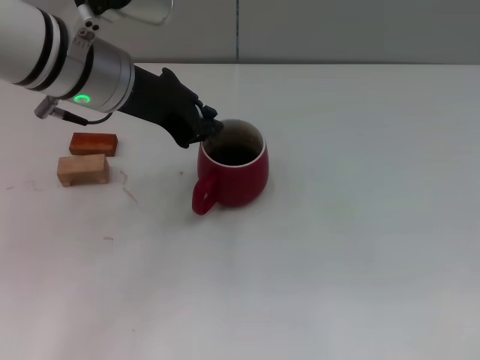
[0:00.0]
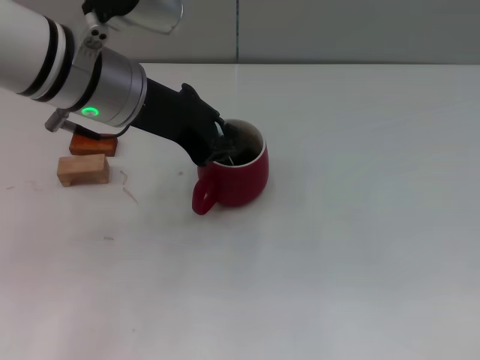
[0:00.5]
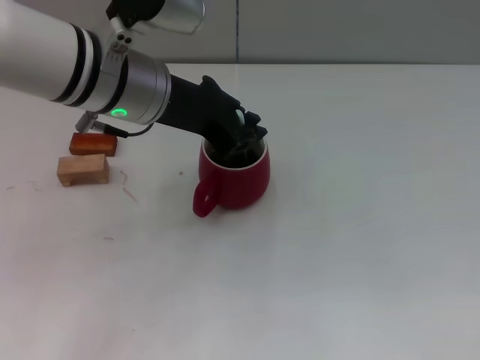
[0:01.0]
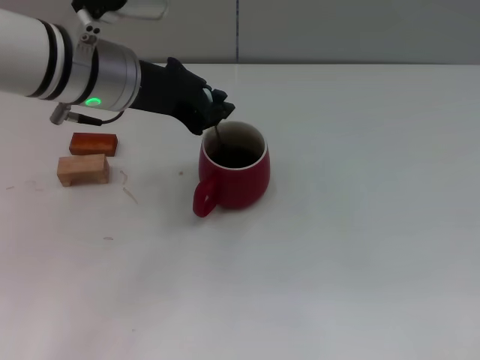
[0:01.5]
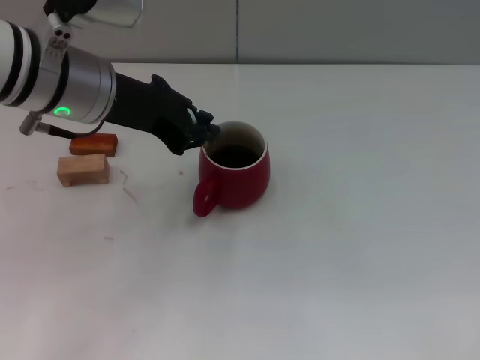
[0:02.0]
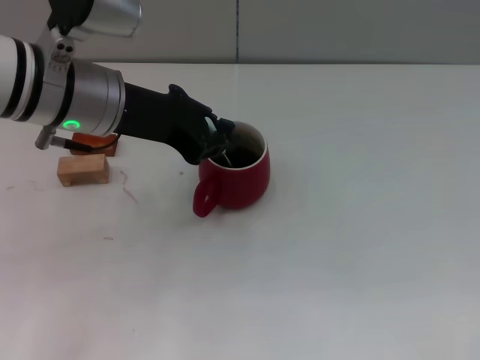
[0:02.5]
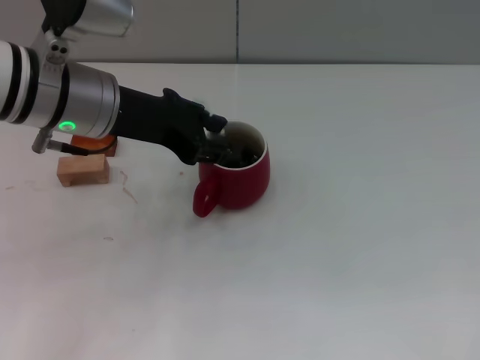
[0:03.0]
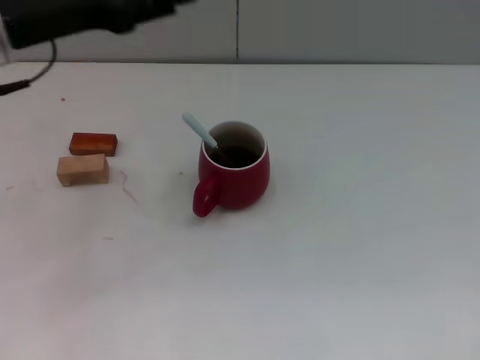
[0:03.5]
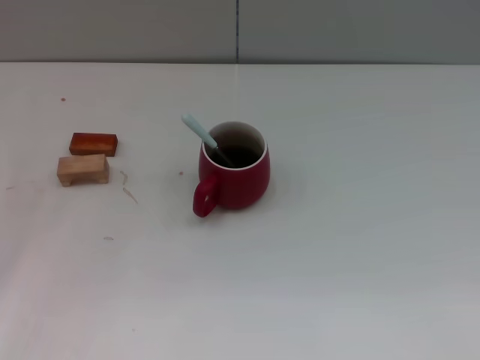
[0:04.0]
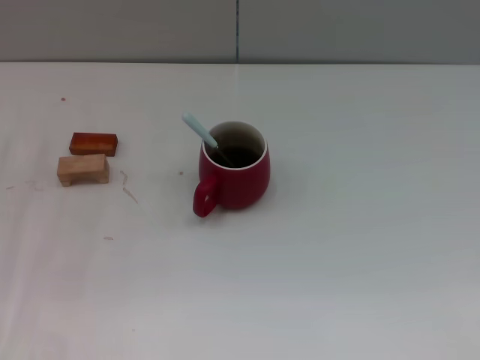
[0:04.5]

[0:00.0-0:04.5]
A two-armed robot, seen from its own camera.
Task of the whole recording: Move the red cup to the center, lift the blue spoon, stir it three times in the cup, and put the spoon into the cup.
Step, 0:00.0 to 0:03.0: Stir the coffee in the cup with the left gripper.
0:00.0 to 0:02.0: The grippers move only a little.
0:02.0 to 0:04.5: The left gripper travels to the left and downward by some 20 cm, and opens up. Meanwhile the right gripper shifts by about 5 cm.

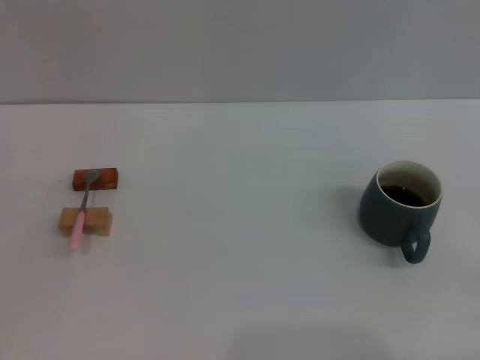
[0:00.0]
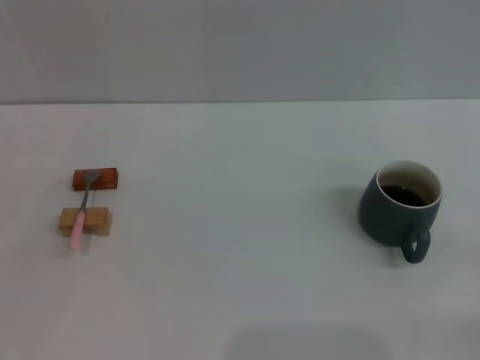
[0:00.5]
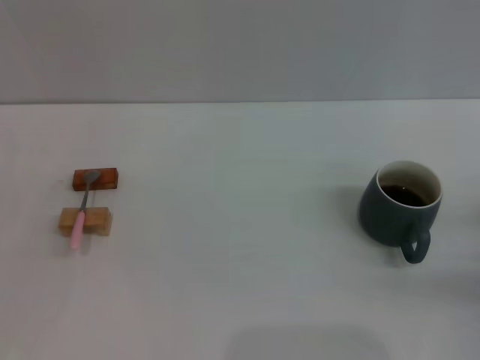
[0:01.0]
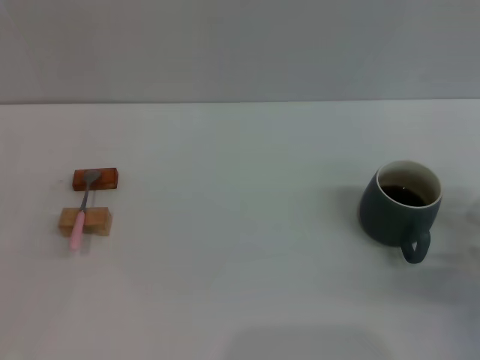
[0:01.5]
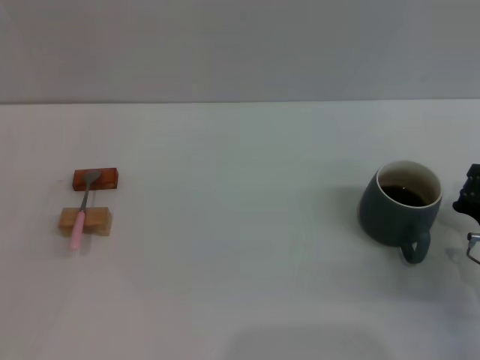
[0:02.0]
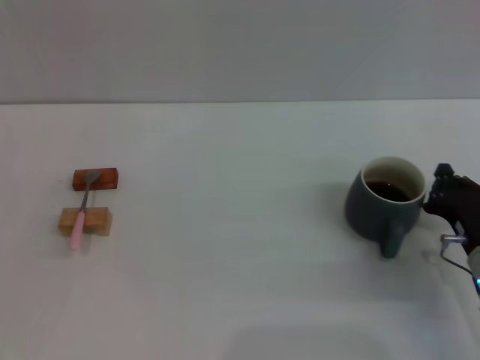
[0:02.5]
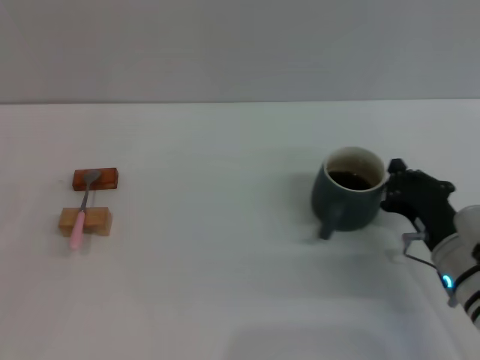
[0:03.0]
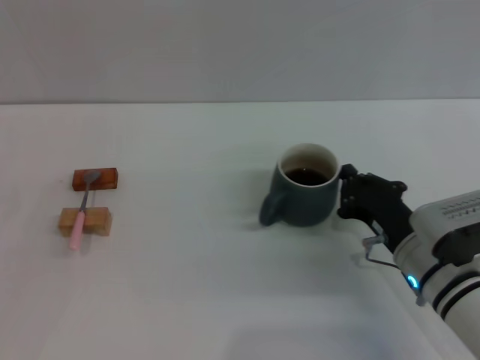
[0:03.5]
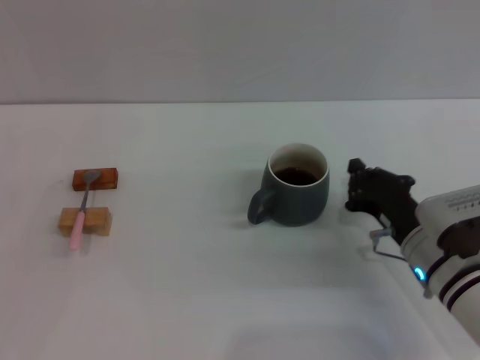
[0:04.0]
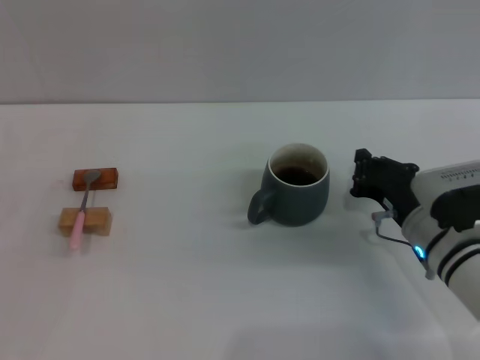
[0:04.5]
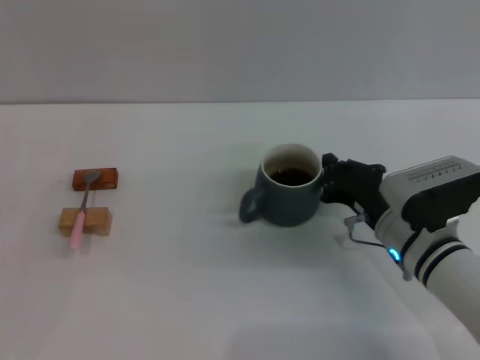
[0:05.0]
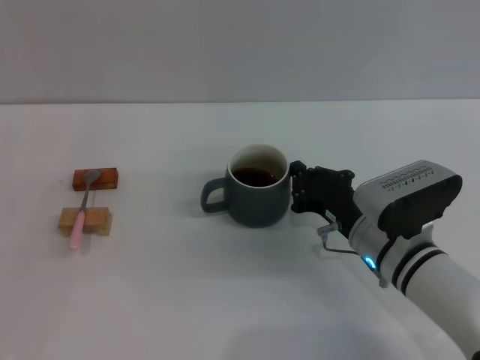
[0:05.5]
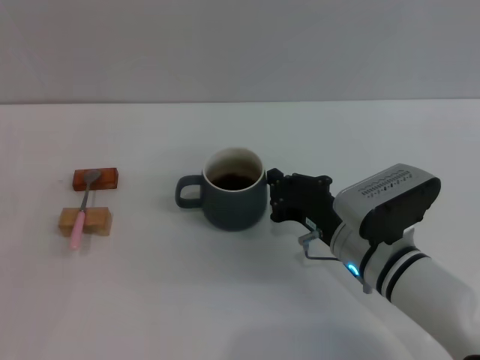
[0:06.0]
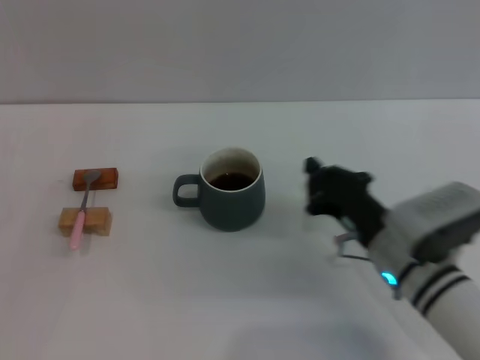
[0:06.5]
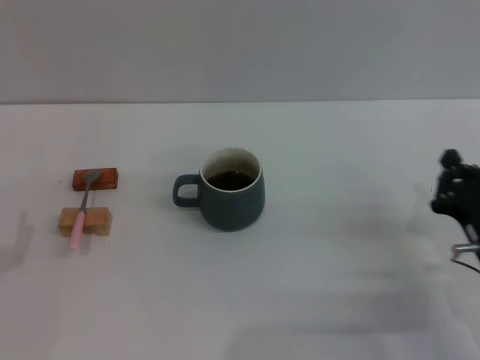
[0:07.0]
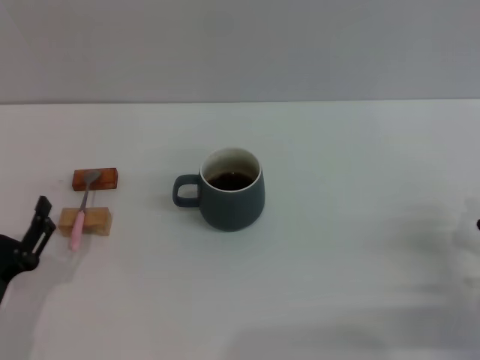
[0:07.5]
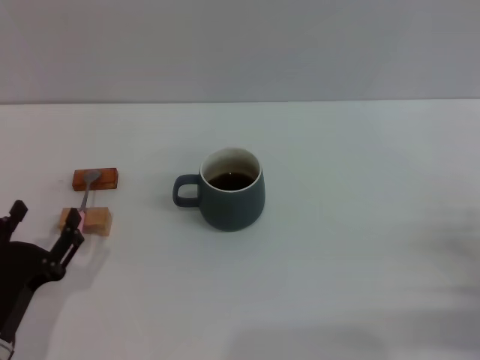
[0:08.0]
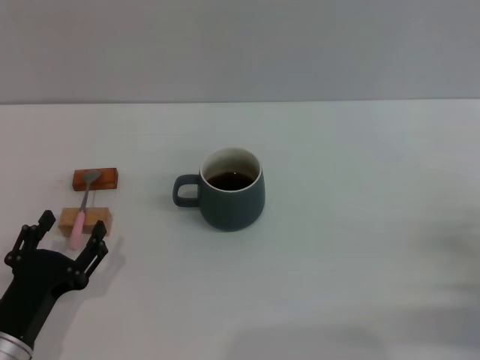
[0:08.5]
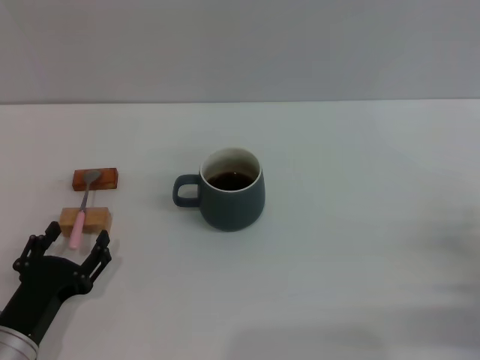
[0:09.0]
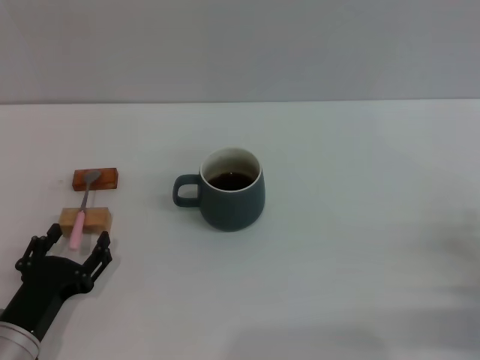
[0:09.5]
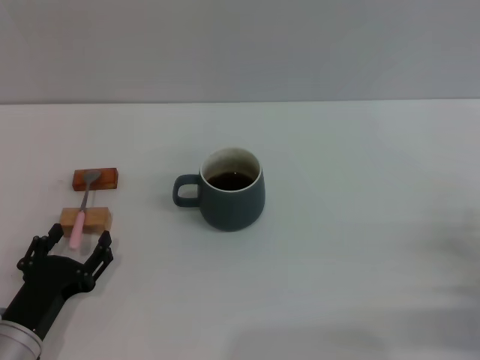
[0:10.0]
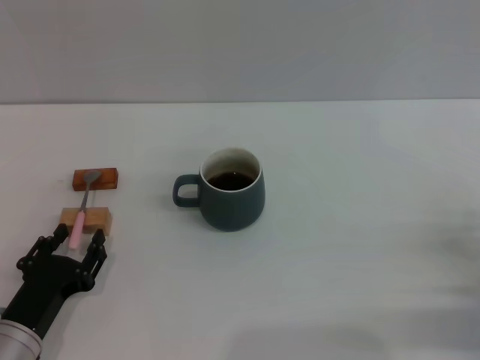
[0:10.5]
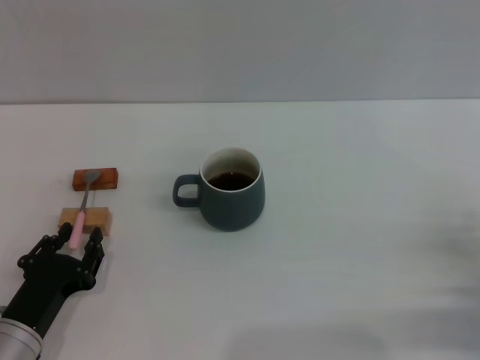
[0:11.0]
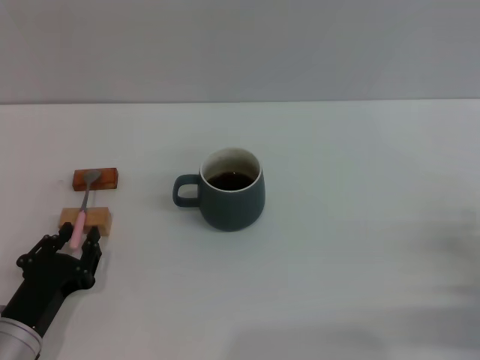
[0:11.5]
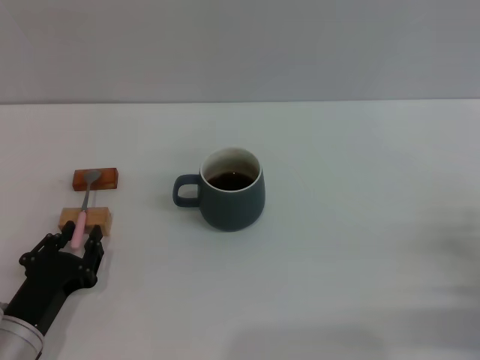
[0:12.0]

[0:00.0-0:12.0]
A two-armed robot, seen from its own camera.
Task of the whole recording: Move the grey cup to the center, lift the pink spoon, stir it three times in the cup, and put the spoon into the cup.
Step, 0:00.0 to 0:06.0: Move the cup with coffee to the center of view with the right gripper.
0:00.0 to 0:02.0: The right gripper is displaced forward and to the left by about 15 cm.
0:02.0 to 0:04.0: The right gripper goes some 10 cm to the left.
0:04.0 to 0:06.0: The right gripper is displaced to the left by roughly 5 cm.
0:06.0 to 0:08.0: The right gripper moves to the right and backward, approximately 20 cm. The left gripper shifts some 10 cm to the right and backward.
0:08.0 to 0:10.0: There are only small adjustments of the grippers.
0:10.0 to 0:12.0: The left gripper closes.

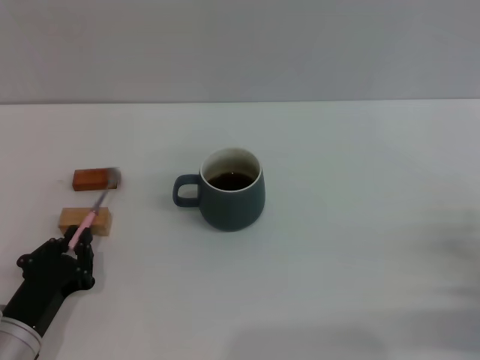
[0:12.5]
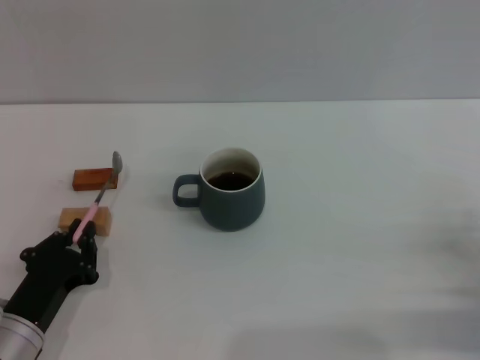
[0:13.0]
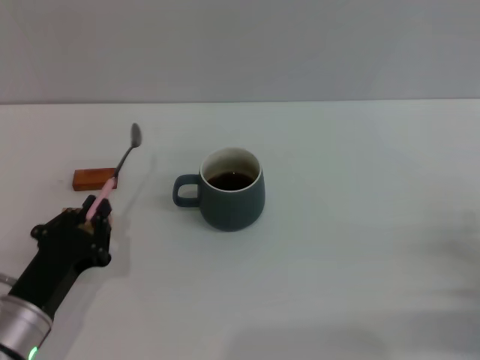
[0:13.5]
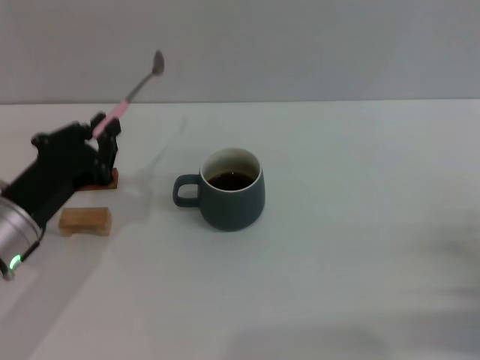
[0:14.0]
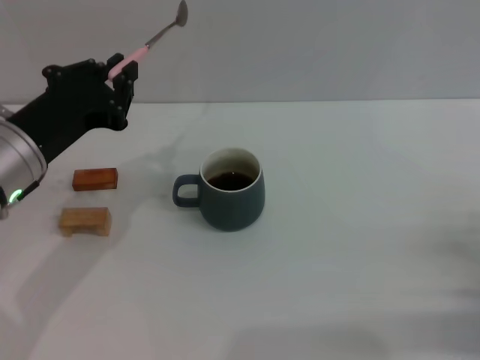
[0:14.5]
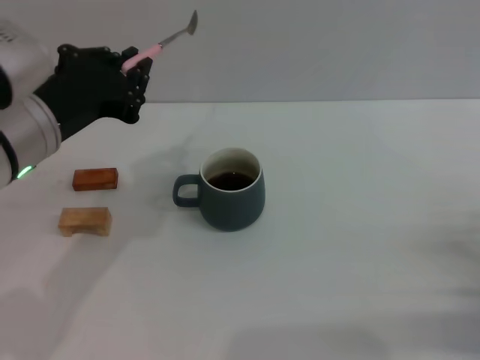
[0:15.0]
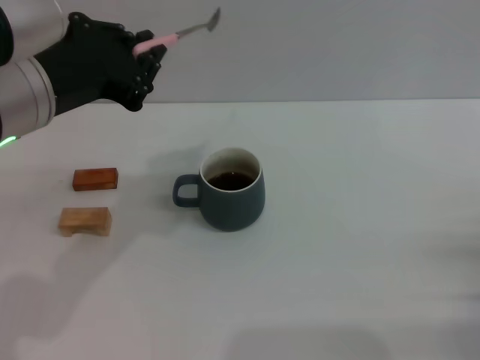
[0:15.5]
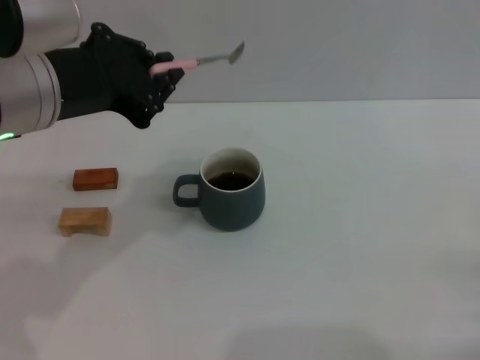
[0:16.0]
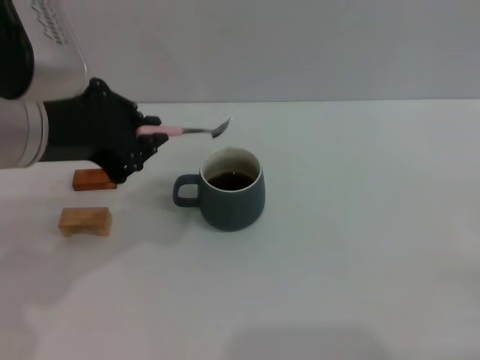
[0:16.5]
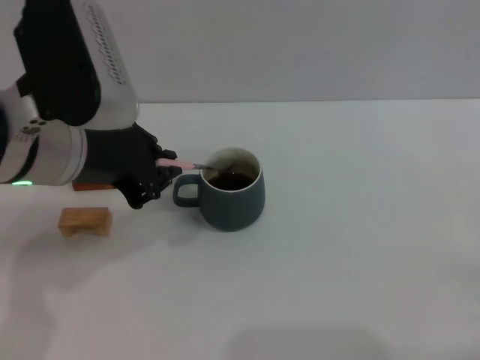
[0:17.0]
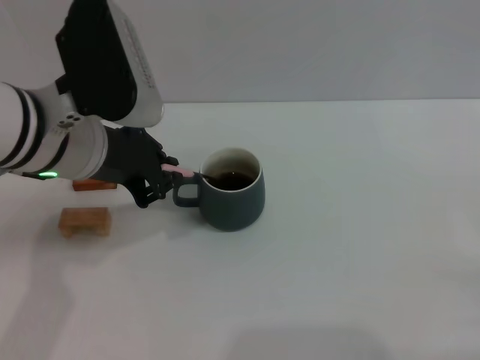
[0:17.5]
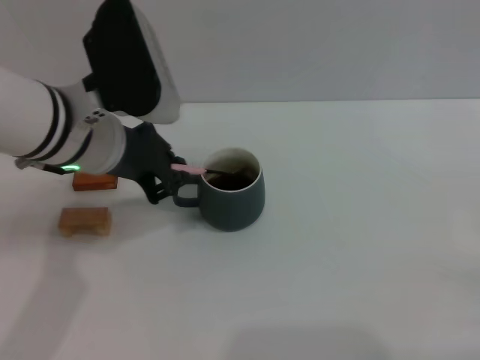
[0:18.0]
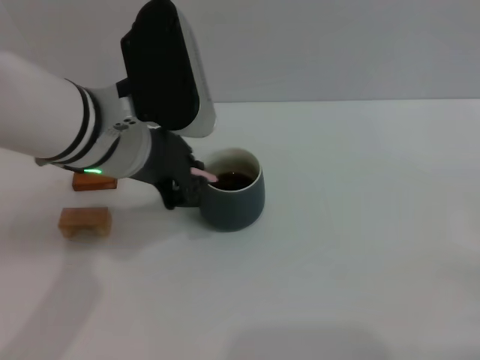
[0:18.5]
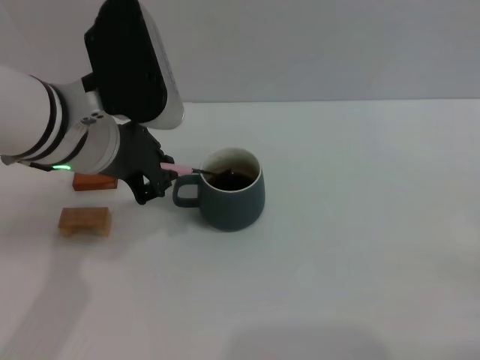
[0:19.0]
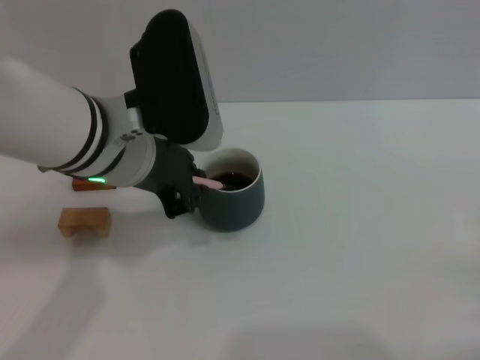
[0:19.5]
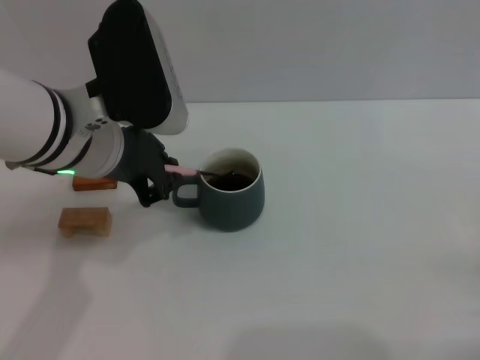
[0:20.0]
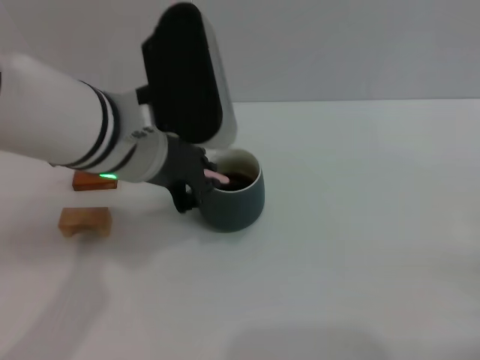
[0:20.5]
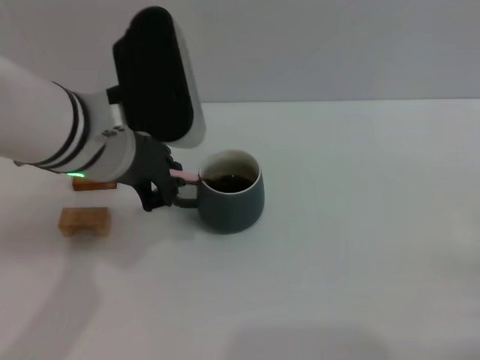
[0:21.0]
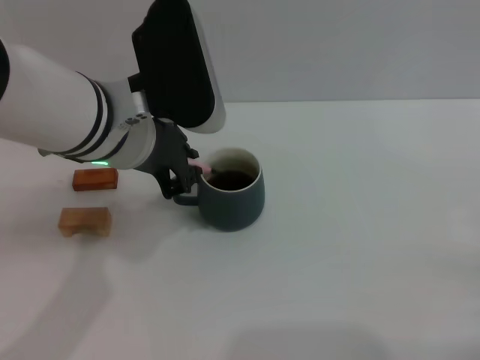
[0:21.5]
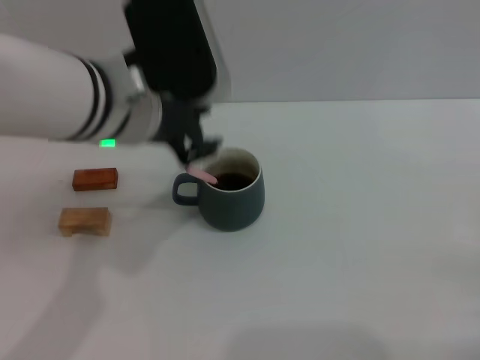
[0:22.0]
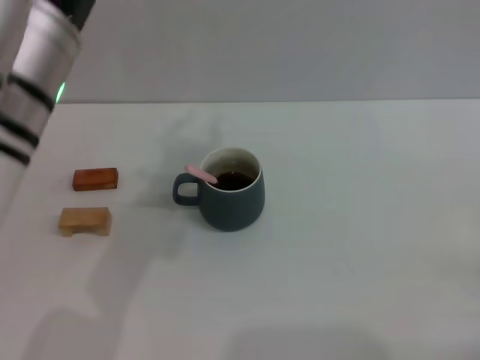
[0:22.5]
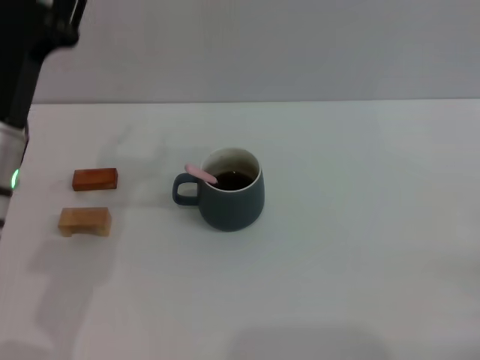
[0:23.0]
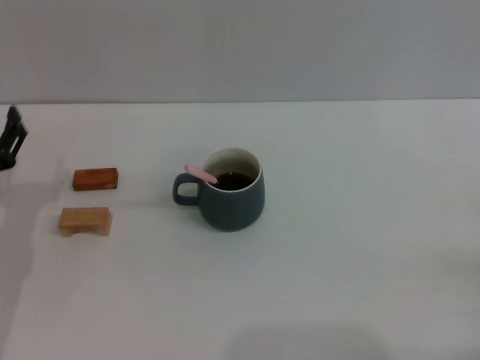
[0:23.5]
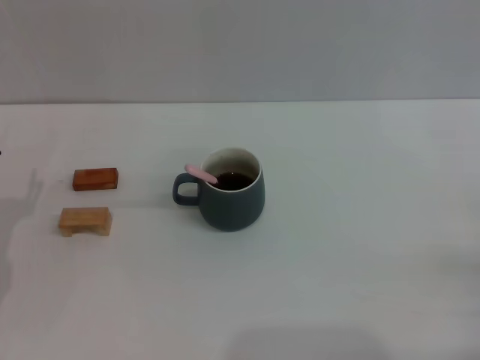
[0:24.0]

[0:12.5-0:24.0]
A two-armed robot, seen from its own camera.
Task of the whole recording: Move the grey cup to the center, lift the pink spoon, stir it three times in the cup, and put the spoon into the cup.
Step, 0:14.5 to 0:22.0: Stir the coffee in the cup with the left gripper.
0:12.5 to 0:14.5: The left gripper travels upward and forward by approximately 20 cm.
0:14.5 to 0:16.5: The left gripper is displaced upward by roughly 10 cm; the right gripper shifts by roughly 5 cm.
0:16.5 to 0:18.5: The left gripper is displaced to the right by approximately 5 cm.
0:18.5 to 0:22.0: The grippers stay close to where they were, moving slightly.
0:22.0 to 0:24.0: The left gripper heads to the left and downward, covering roughly 30 cm, and opens up.
